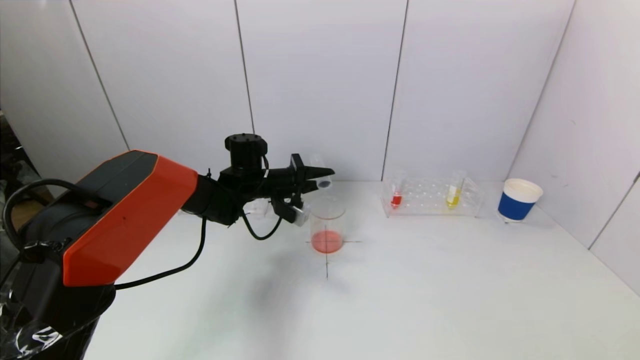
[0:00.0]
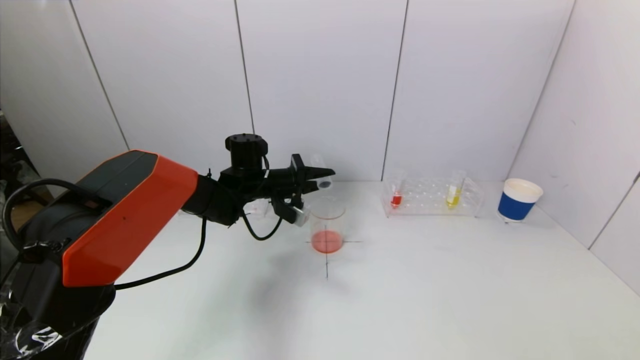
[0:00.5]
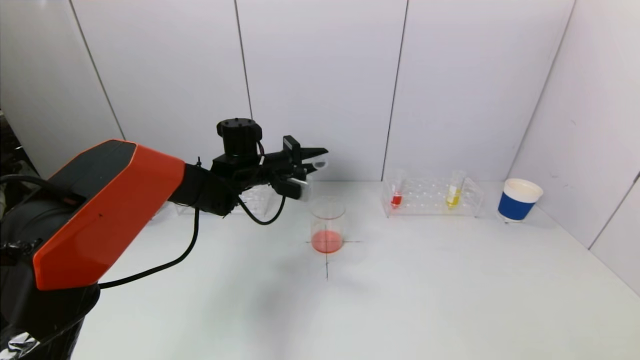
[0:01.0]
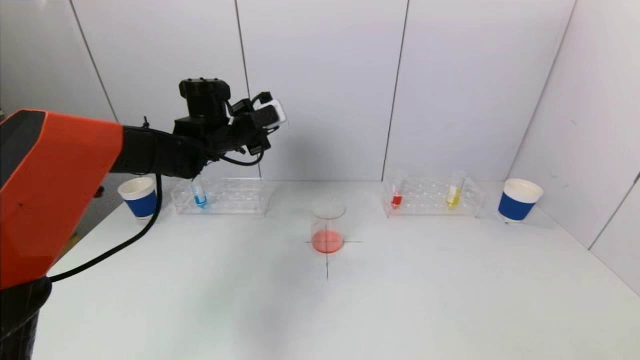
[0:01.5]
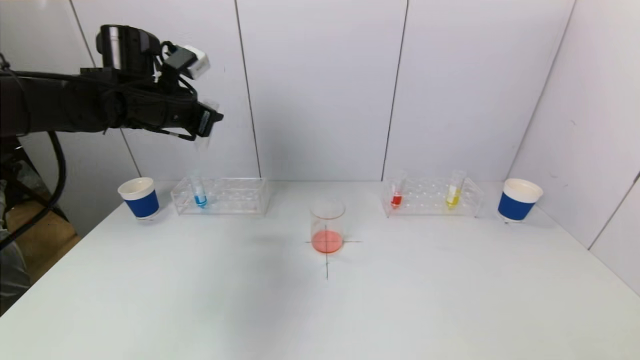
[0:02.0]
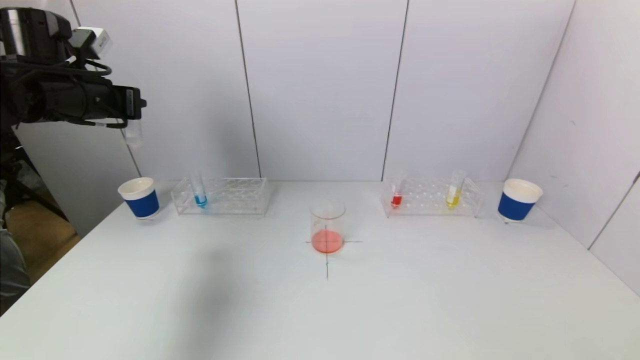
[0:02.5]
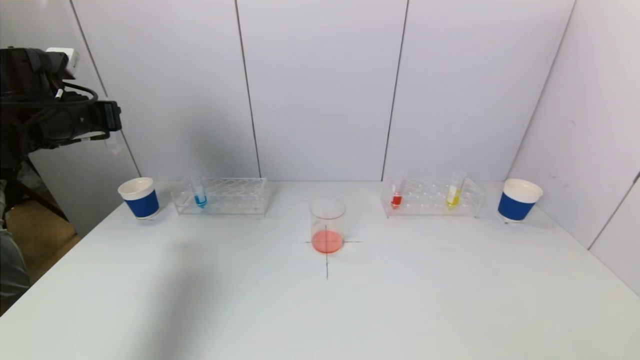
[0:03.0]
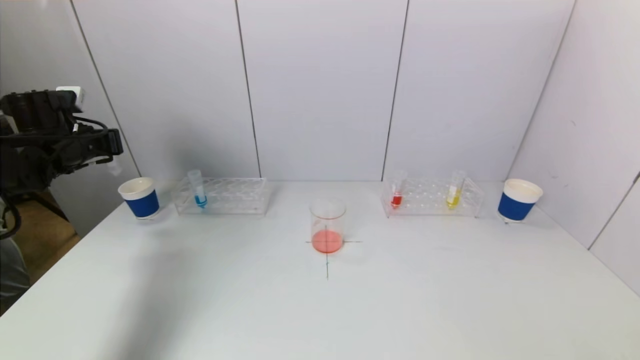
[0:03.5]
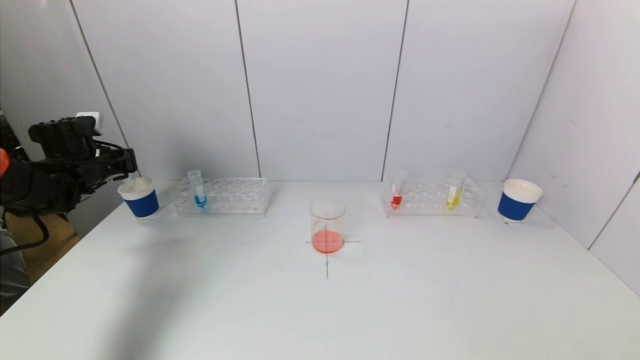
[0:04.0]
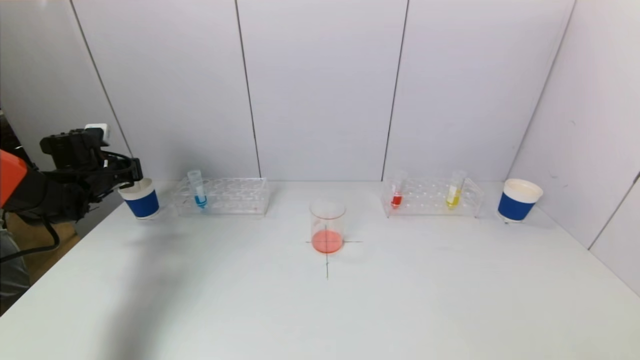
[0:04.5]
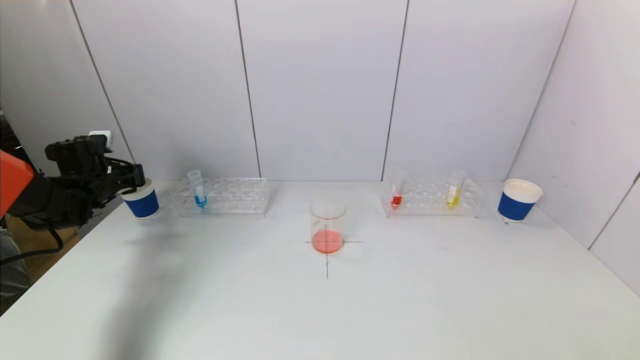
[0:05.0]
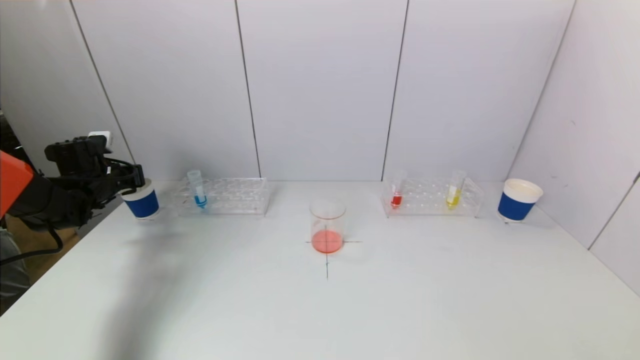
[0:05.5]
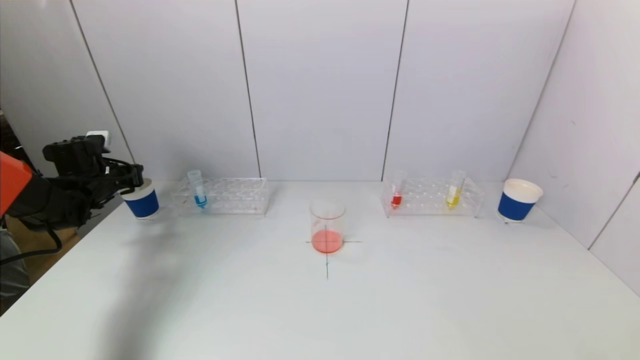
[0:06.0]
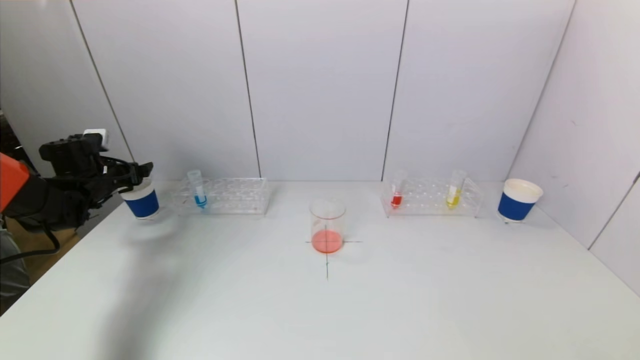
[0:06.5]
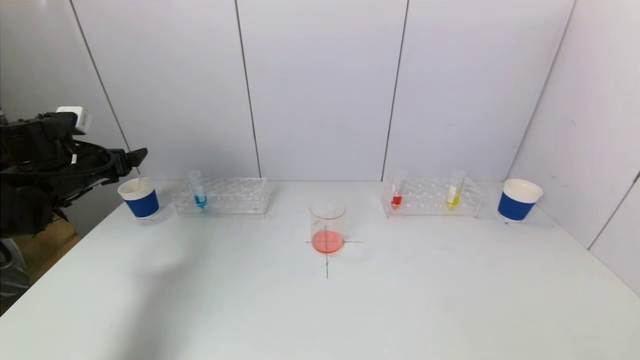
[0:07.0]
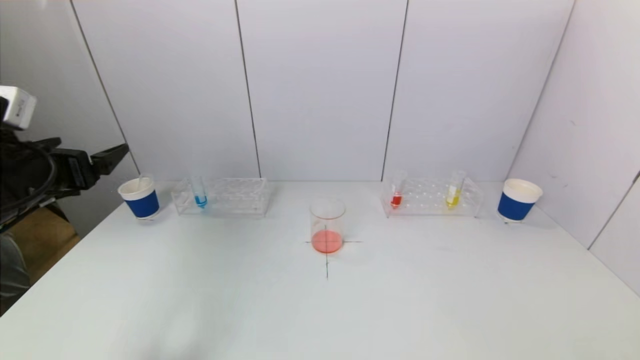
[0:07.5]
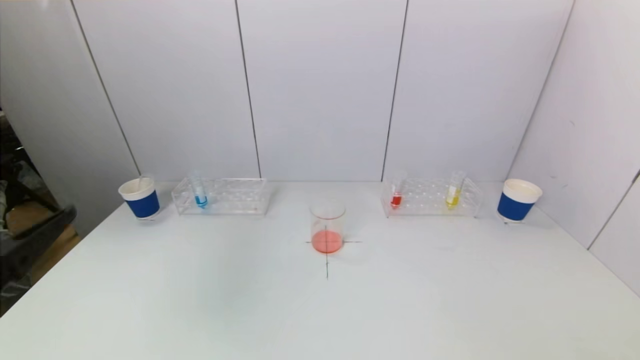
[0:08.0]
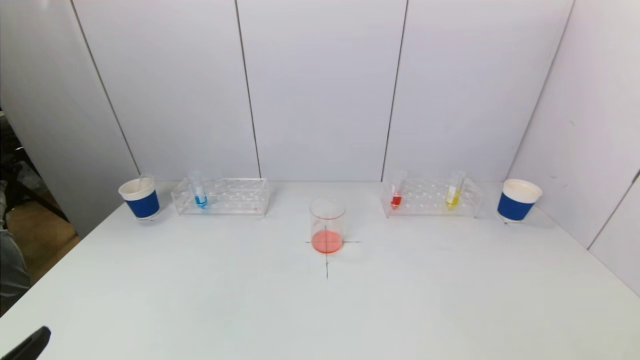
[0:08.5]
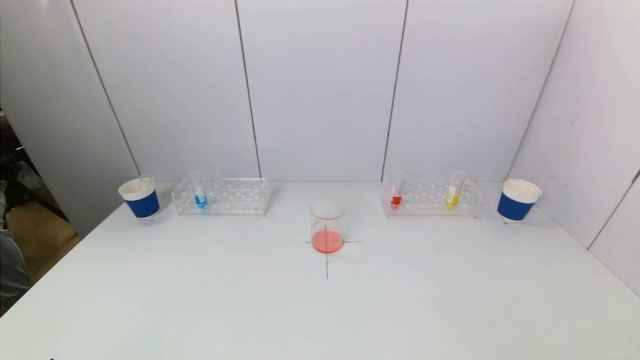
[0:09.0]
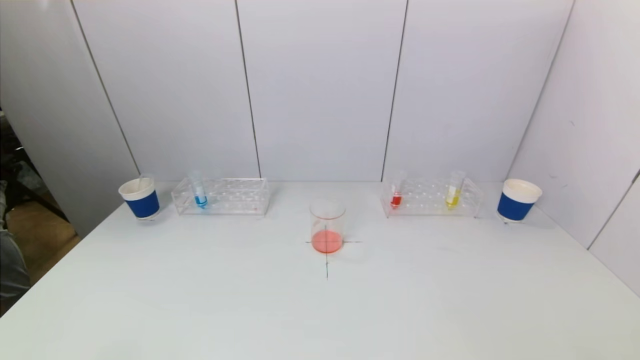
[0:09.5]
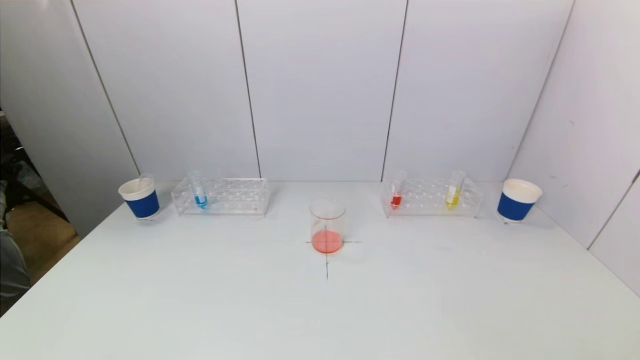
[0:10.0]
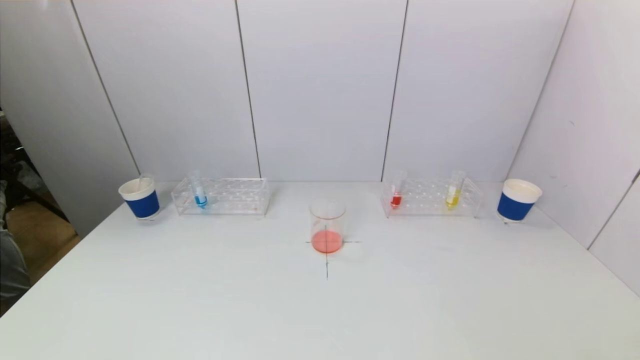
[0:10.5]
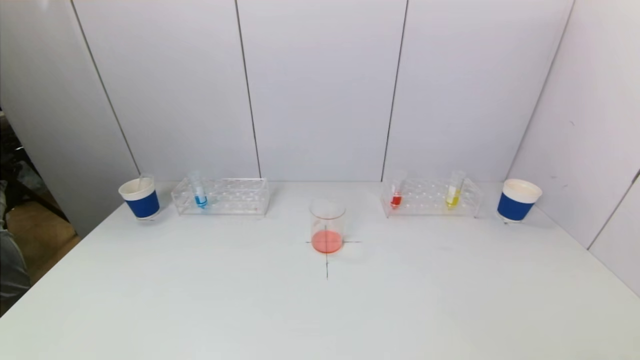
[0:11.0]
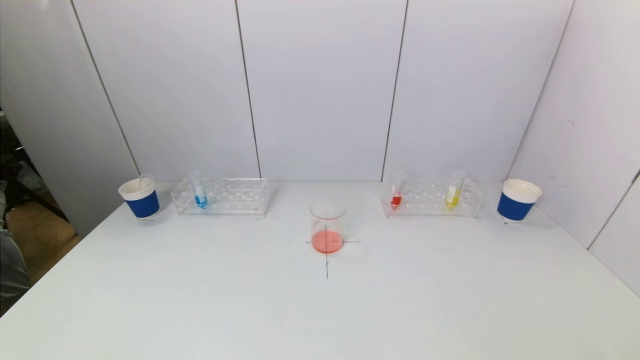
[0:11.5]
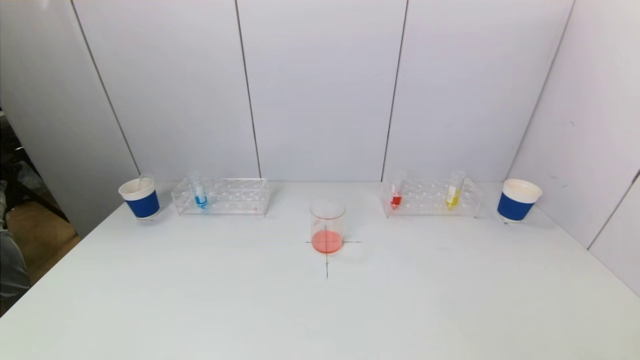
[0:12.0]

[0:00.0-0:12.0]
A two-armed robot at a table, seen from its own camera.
Task of the whole recording: pick up a test tube with pigment on left test tube rack and a test tube with pigment on right test tube rack by grippers and pour them into the beaker.
Step, 0:00.0 to 0:06.5: Place the test tube into the paper cup with the left gripper.
0:00.0 to 0:02.0: The left gripper goes some 20 cm upward and to the left.
0:02.0 to 0:04.0: The left gripper heads to the left and downward, covering roughly 20 cm.
0:04.0 to 0:06.0: The left gripper opens up.
0:06.0 to 0:08.0: The left gripper shifts about 35 cm backward, and opens.
0:08.0 to 0:10.0: The left gripper moves downward and backward, about 15 cm.

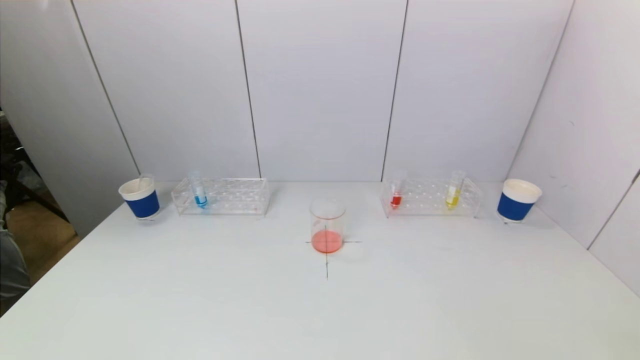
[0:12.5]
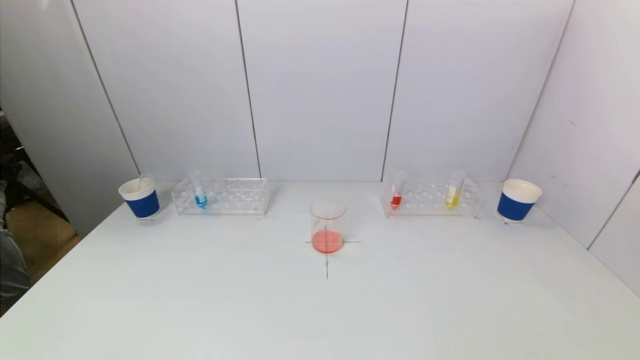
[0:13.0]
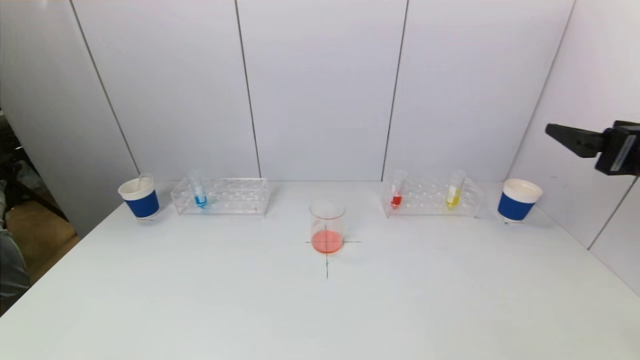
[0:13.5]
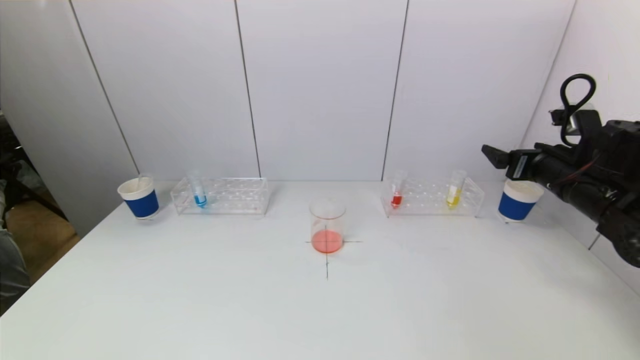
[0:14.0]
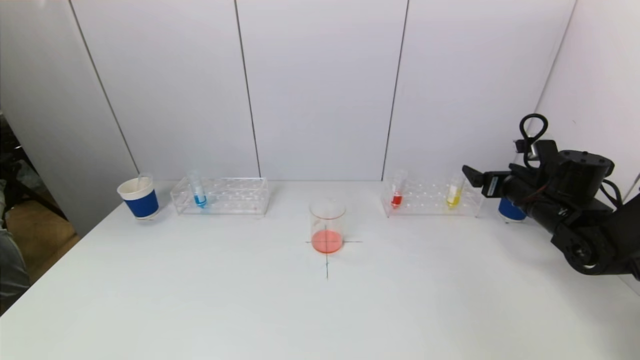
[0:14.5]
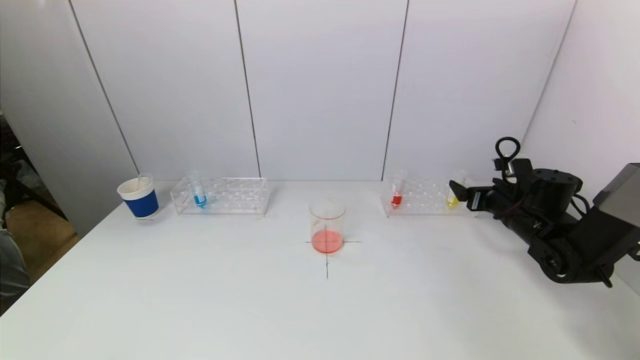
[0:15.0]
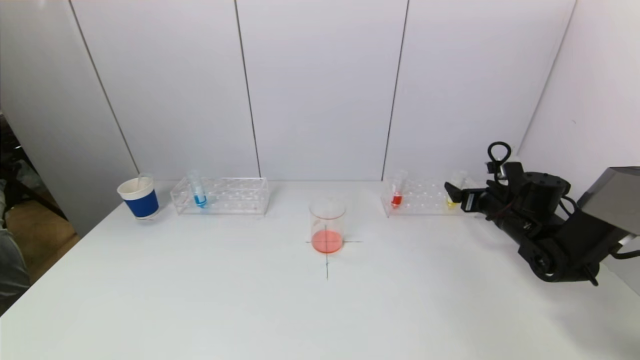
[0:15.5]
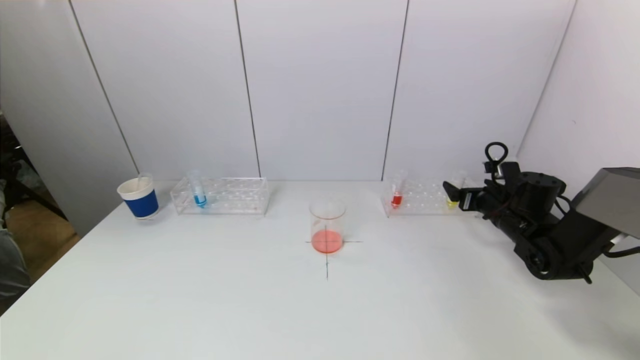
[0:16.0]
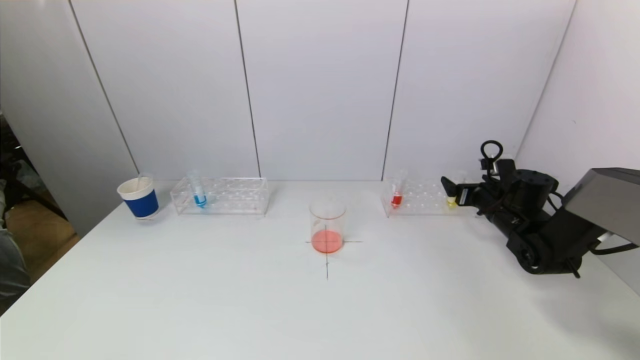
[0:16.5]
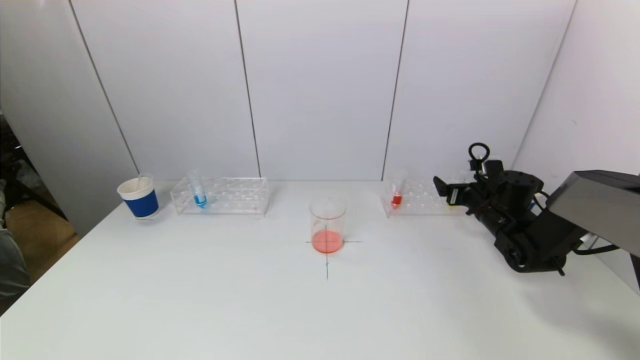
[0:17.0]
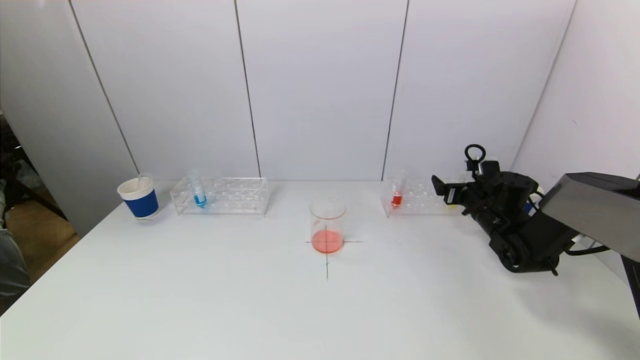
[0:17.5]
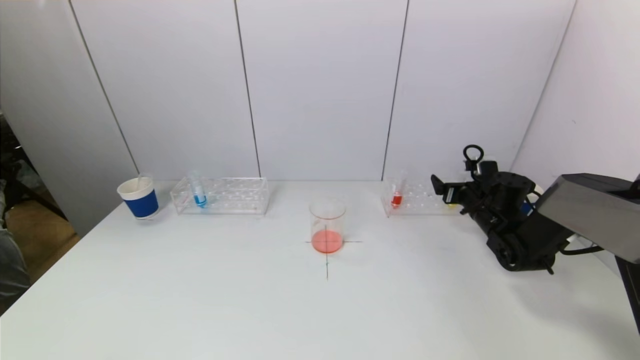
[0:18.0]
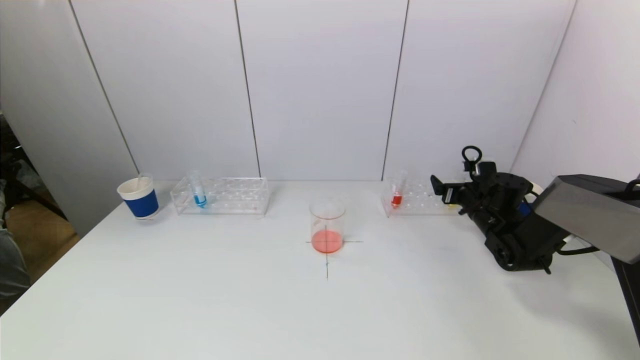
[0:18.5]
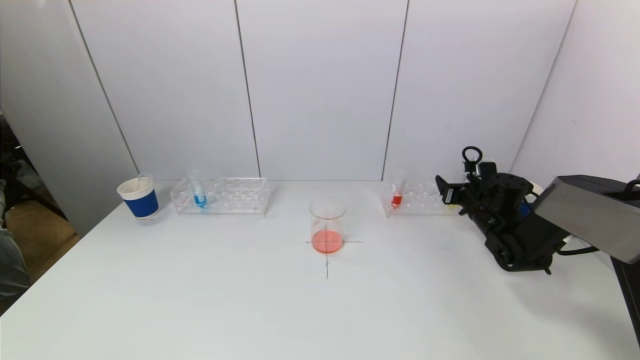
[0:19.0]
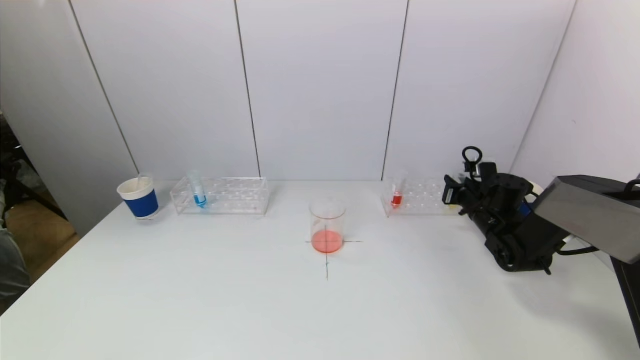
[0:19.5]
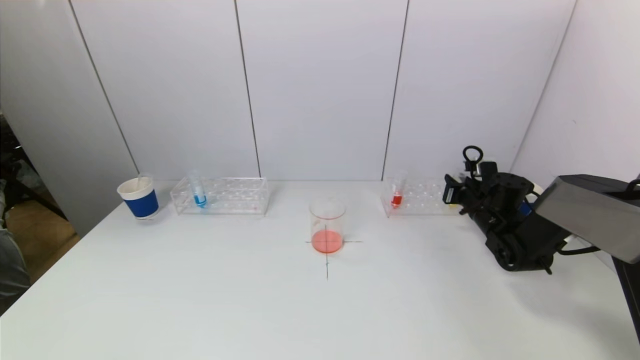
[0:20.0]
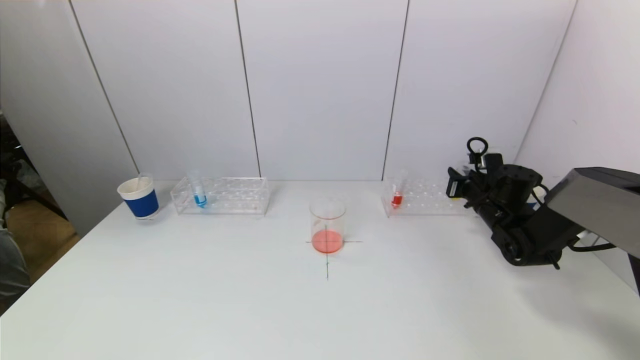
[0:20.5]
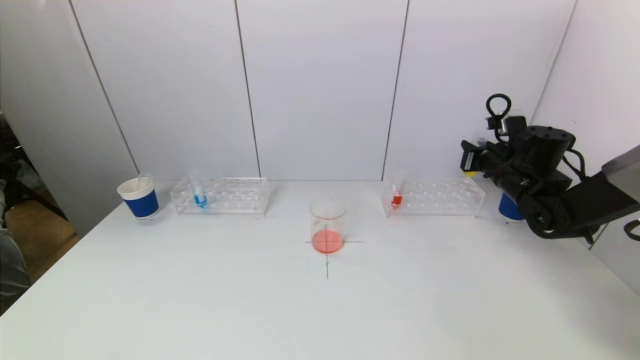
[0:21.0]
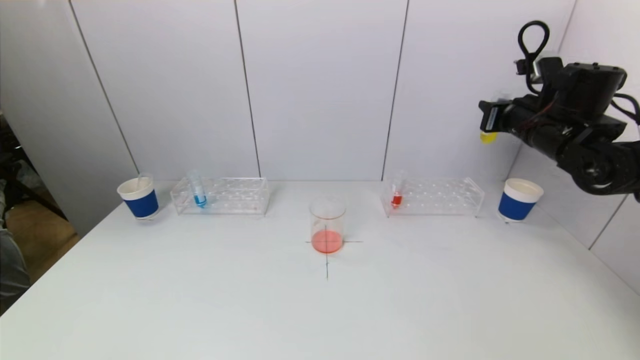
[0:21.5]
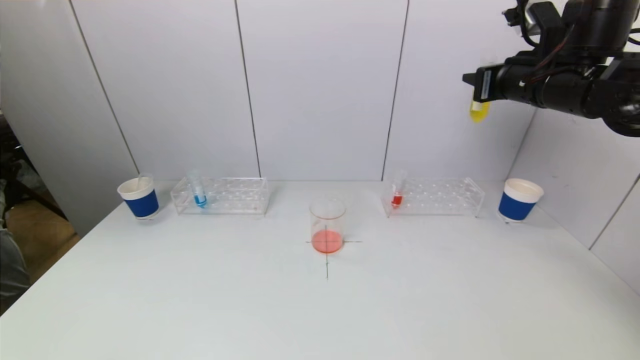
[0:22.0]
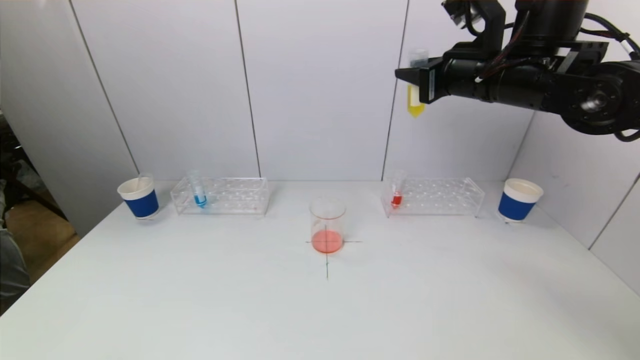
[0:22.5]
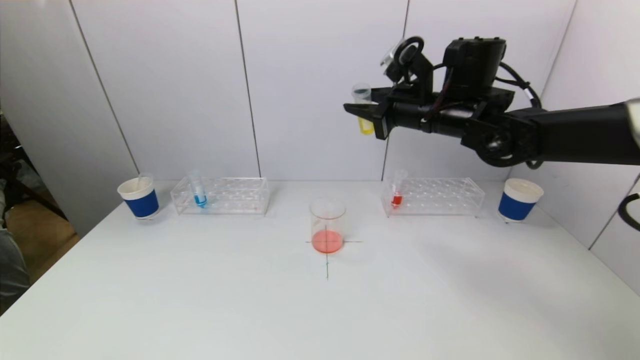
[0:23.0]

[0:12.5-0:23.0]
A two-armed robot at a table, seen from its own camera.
Task of the whole recording: pick up a test tube with pigment on left test tube rack and a test tube with pigment on right test tube rack by grippers and pour them into the beaker.
Step, 0:12.5 to 0:20.0: Grasp the yellow reagent with the right gripper.
0:12.5 to 0:14.5: The right gripper is displaced forward by about 40 cm.
0:14.5 to 0:16.5: The right gripper heads downward and forward, covering roughly 10 cm.
0:16.5 to 0:19.0: The right gripper closes its fingers.
0:19.0 to 0:21.0: The right gripper is displaced upward by roughly 10 cm, and closes up.
0:21.0 to 0:23.0: The right gripper moves to the left and upward, some 20 cm.
